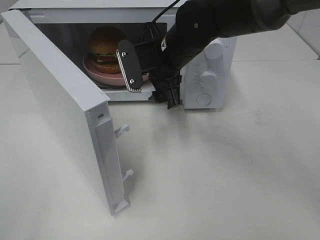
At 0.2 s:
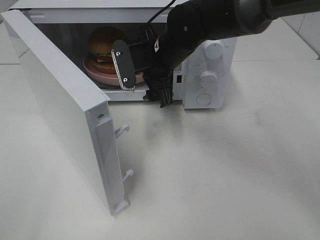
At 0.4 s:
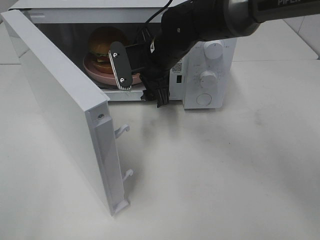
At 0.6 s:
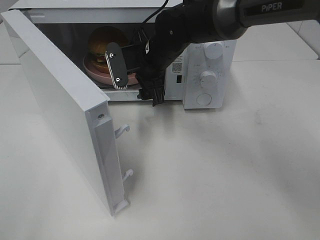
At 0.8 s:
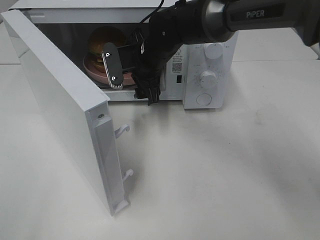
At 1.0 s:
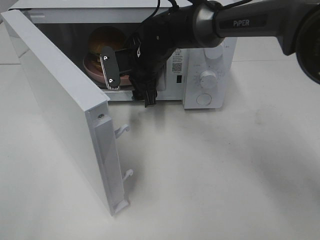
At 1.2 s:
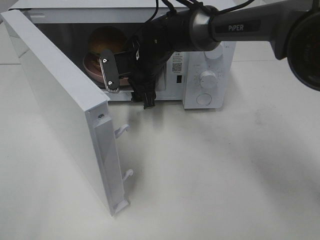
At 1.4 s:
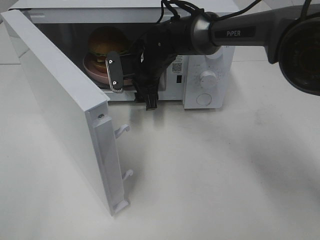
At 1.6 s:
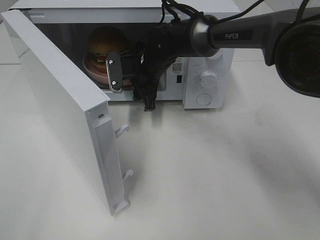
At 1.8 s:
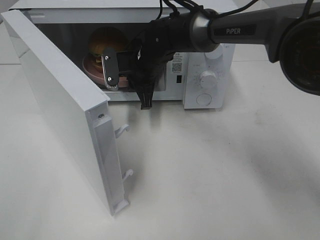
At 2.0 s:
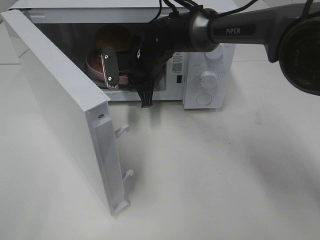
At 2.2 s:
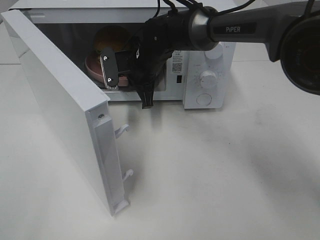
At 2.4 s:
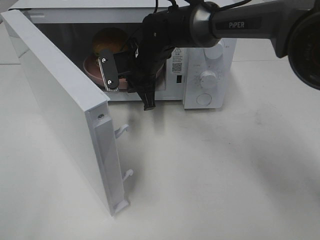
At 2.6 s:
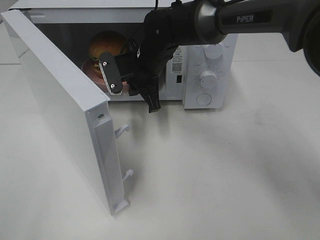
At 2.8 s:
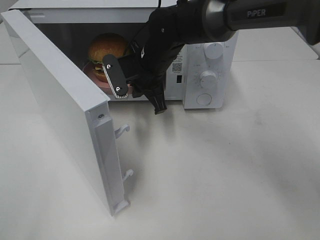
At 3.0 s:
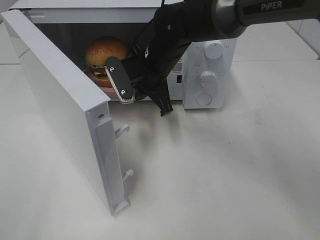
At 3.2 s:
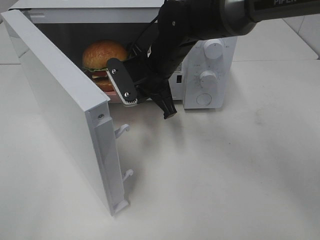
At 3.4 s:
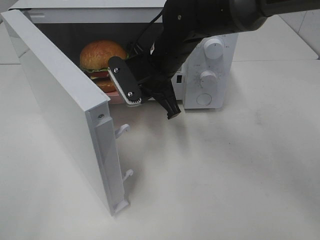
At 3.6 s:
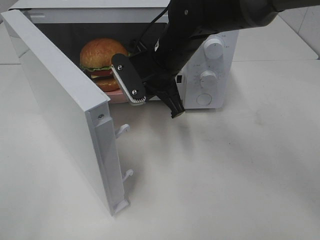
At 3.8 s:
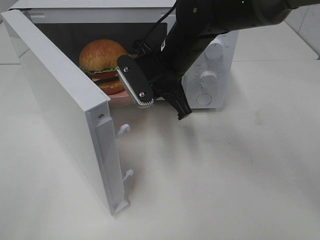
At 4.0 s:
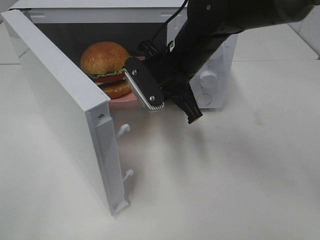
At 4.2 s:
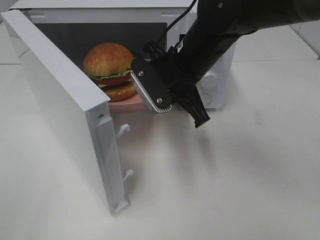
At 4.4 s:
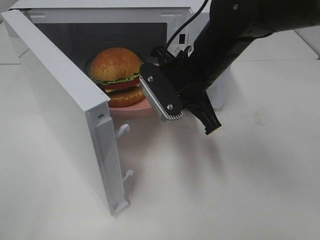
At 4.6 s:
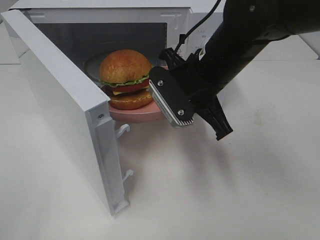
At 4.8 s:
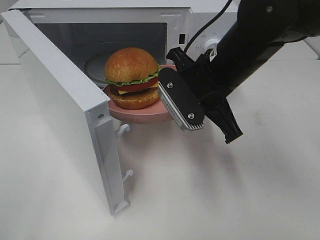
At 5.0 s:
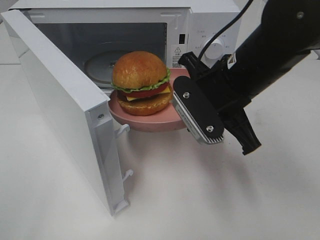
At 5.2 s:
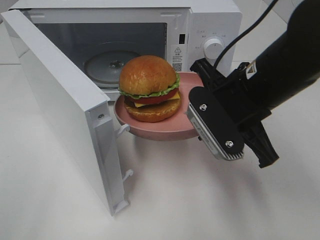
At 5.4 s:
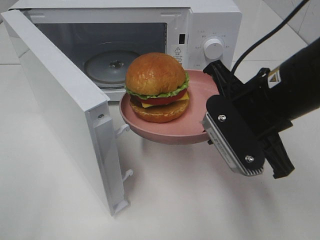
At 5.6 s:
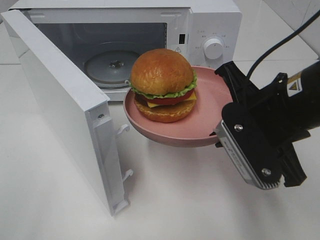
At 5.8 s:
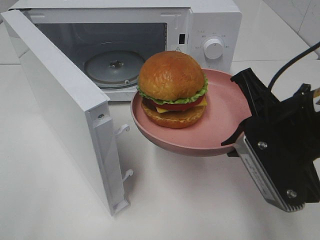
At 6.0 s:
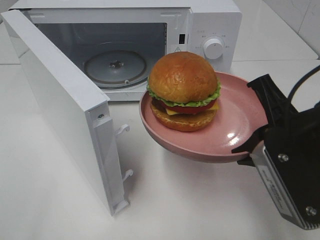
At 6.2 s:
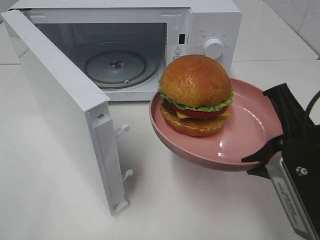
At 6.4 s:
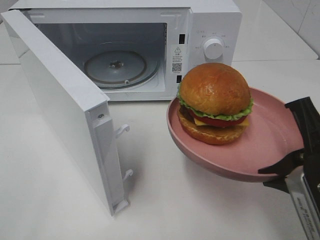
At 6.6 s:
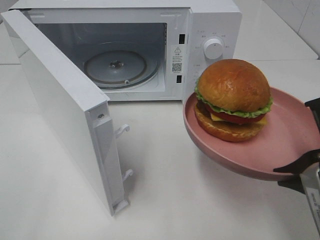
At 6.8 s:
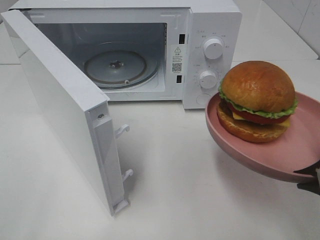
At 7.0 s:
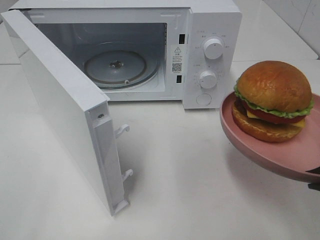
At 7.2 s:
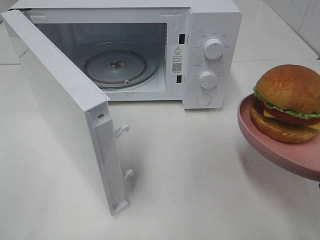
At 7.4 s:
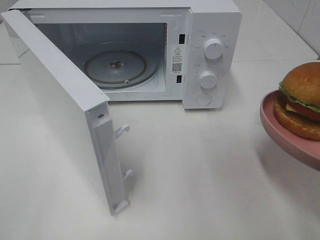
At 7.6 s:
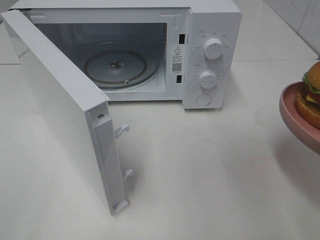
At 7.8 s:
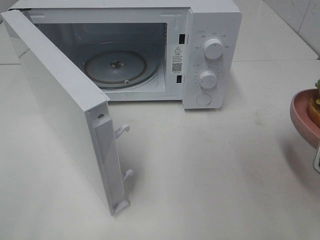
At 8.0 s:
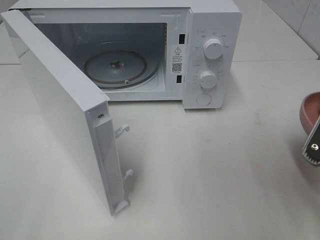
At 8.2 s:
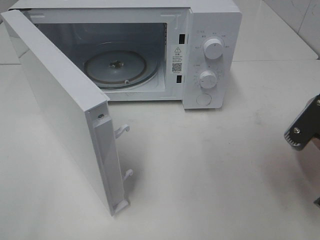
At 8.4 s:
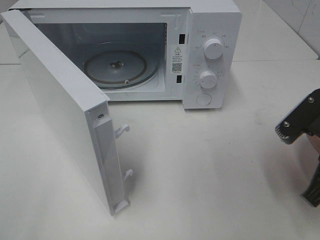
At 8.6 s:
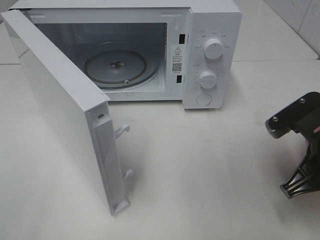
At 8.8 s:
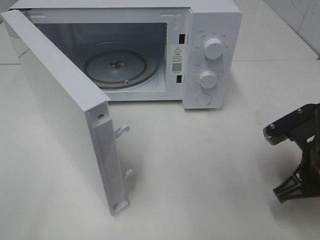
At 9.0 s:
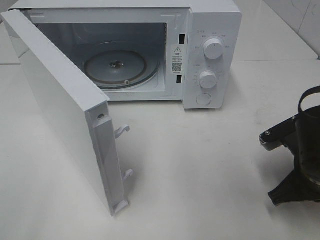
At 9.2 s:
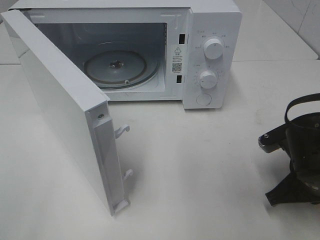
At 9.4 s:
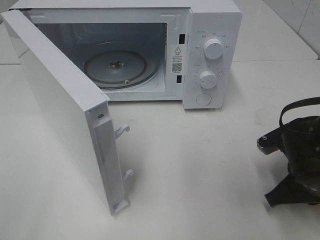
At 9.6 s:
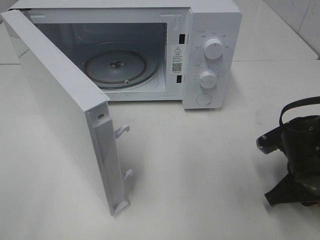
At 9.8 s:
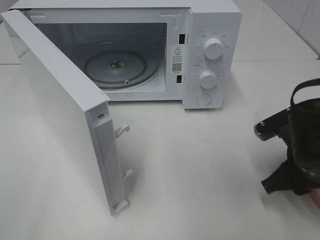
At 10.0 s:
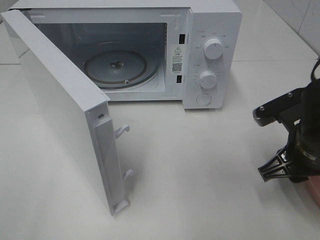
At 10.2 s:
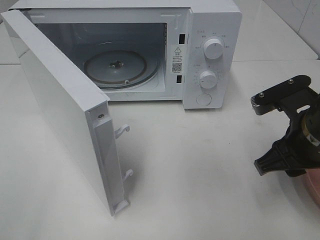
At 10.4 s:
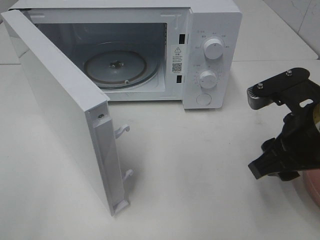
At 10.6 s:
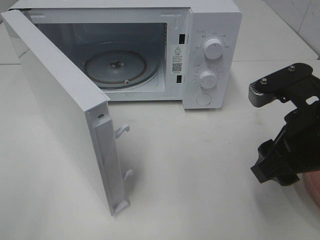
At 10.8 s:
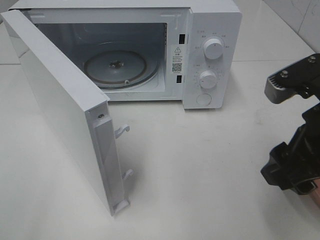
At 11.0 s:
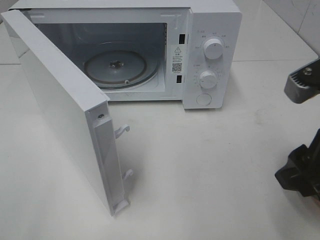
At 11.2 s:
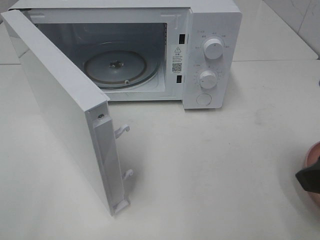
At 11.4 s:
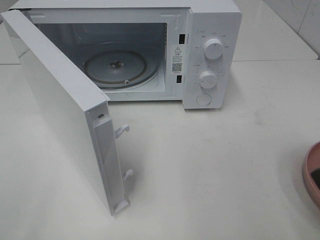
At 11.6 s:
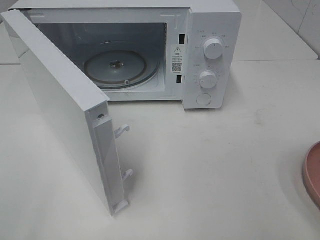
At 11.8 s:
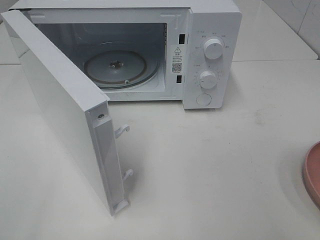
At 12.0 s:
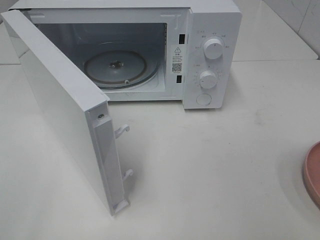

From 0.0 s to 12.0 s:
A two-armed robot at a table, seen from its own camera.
Task of the whole recording: Heat the burger.
Step, from 2.0 s to 9.6 s: Right hand: place the plate on the table.
From 0.0 s to 1.6 s: The right gripper shifts roughly 10 cm forward and downward.
From 1.6 s to 3.0 s: The right gripper is displaced backward by some 5 cm, and closes its fingers.
From 3.0 s to 4.4 s: The right gripper goes approximately 10 cm backward and to the right.
From 4.4 s to 6.0 s: The right gripper heads backward and to the right, covering some 20 cm.
From 6.0 s to 7.6 s: The right gripper goes approximately 5 cm to the right.
From 7.6 s to 9.0 s: The right gripper goes about 15 cm downward and forward.
From 9.0 s to 10.4 s: The right gripper travels upward by approximately 10 cm, and opens up.
From 10.4 s to 12.0 s: The right gripper travels backward, to the right and upward by about 20 cm.

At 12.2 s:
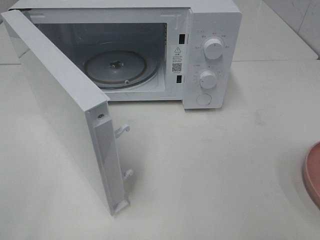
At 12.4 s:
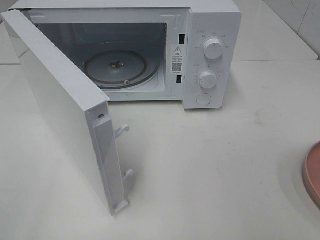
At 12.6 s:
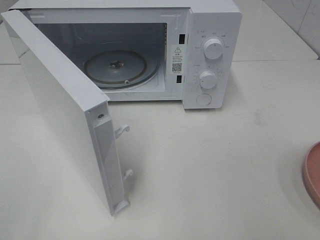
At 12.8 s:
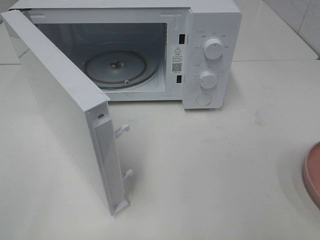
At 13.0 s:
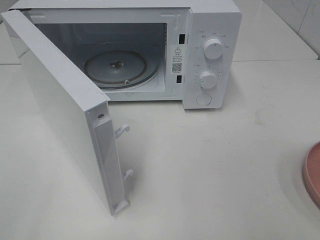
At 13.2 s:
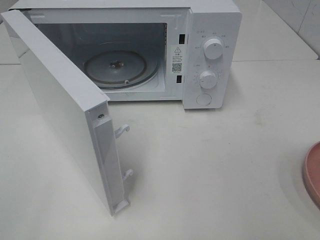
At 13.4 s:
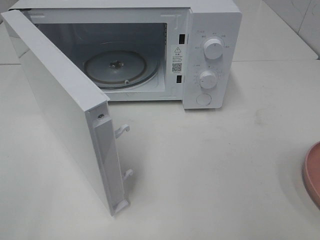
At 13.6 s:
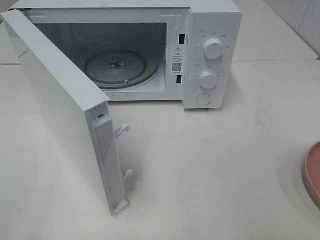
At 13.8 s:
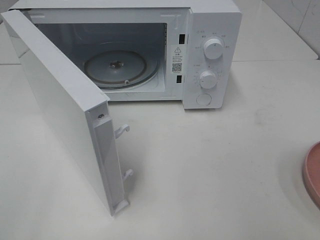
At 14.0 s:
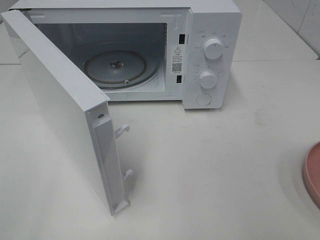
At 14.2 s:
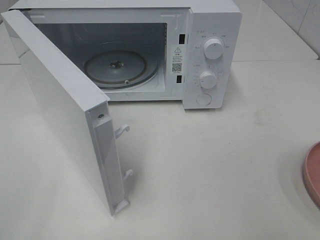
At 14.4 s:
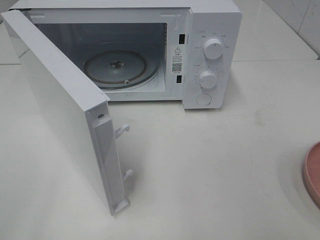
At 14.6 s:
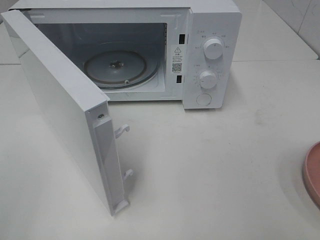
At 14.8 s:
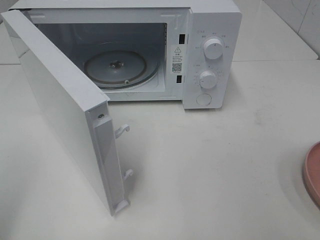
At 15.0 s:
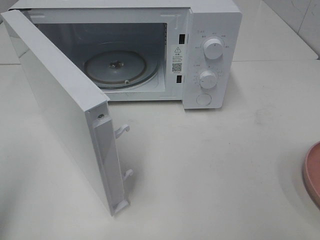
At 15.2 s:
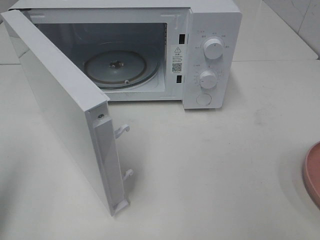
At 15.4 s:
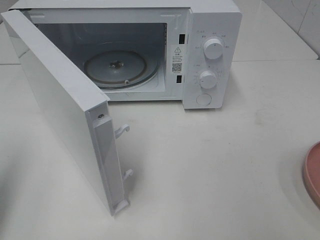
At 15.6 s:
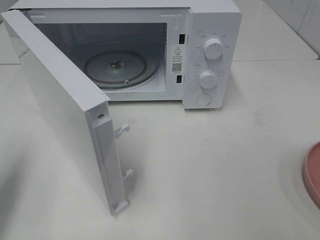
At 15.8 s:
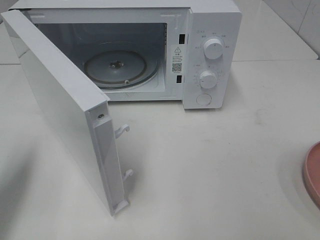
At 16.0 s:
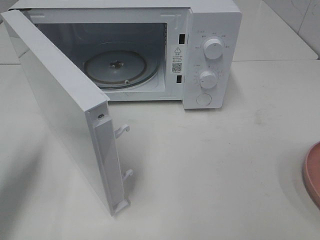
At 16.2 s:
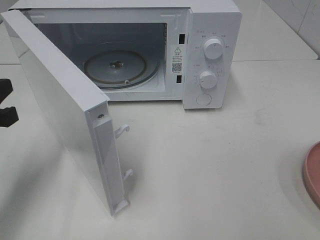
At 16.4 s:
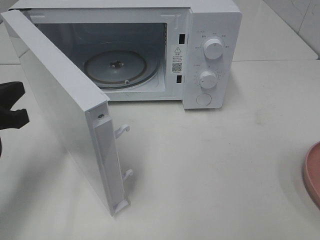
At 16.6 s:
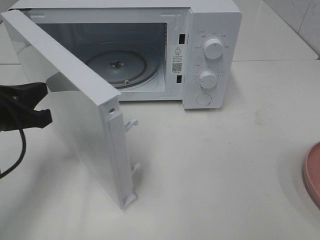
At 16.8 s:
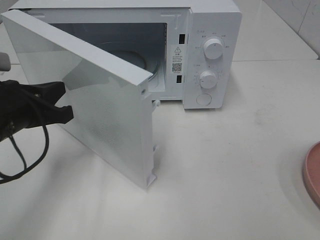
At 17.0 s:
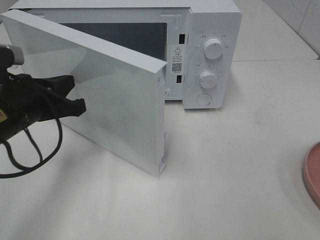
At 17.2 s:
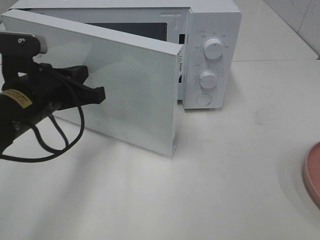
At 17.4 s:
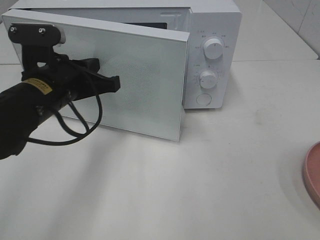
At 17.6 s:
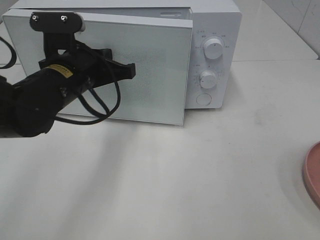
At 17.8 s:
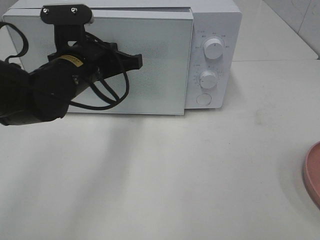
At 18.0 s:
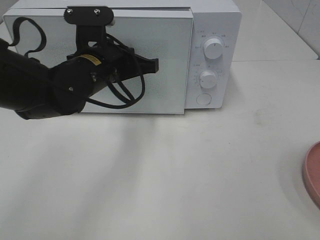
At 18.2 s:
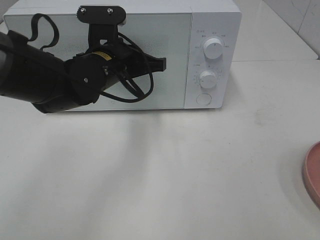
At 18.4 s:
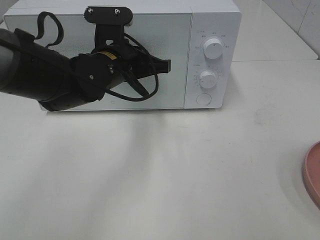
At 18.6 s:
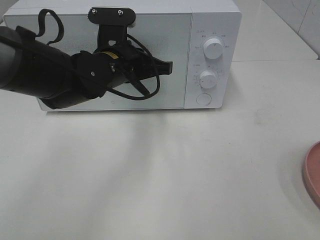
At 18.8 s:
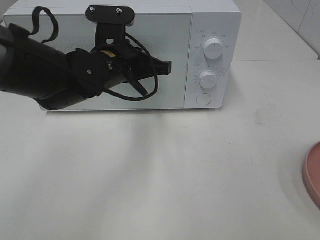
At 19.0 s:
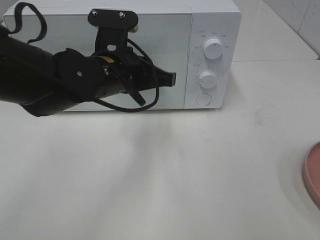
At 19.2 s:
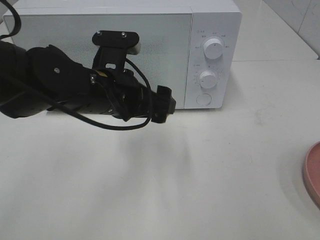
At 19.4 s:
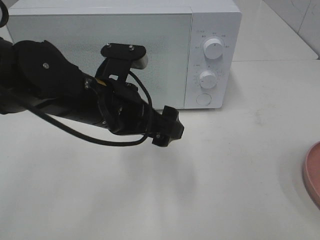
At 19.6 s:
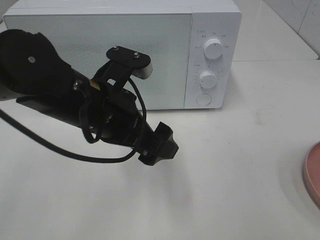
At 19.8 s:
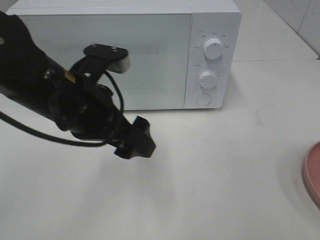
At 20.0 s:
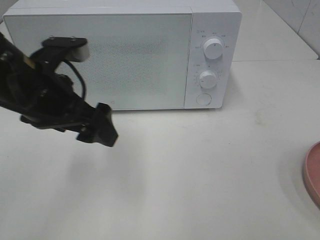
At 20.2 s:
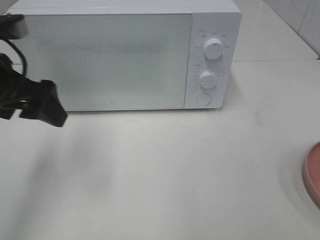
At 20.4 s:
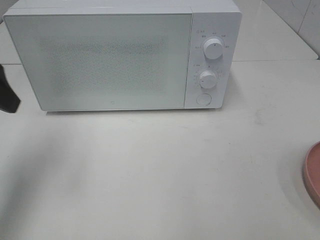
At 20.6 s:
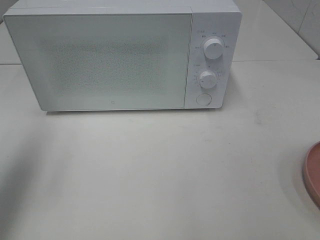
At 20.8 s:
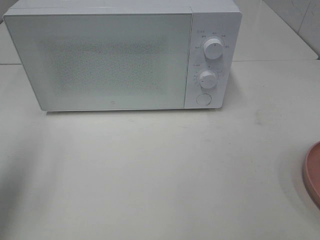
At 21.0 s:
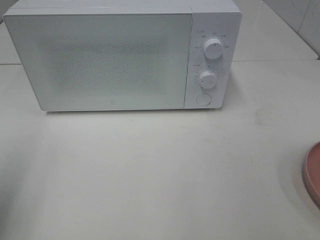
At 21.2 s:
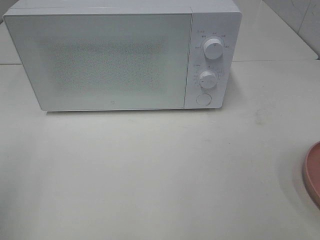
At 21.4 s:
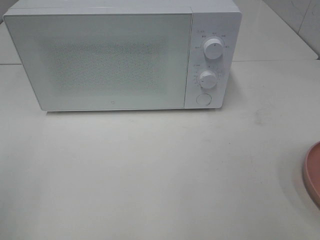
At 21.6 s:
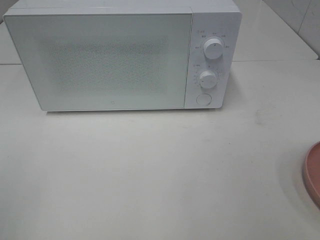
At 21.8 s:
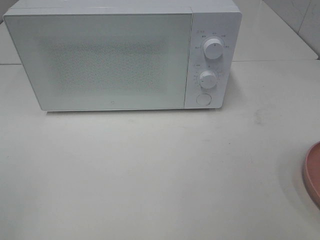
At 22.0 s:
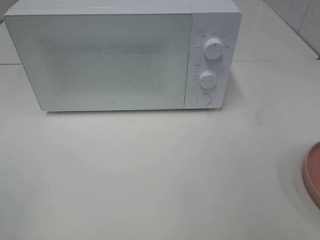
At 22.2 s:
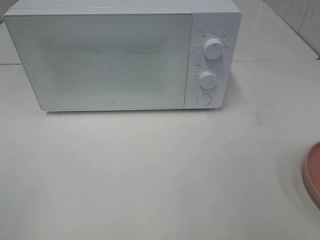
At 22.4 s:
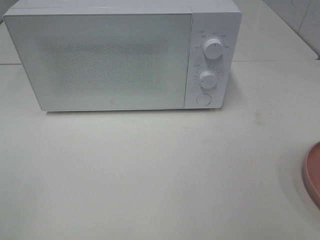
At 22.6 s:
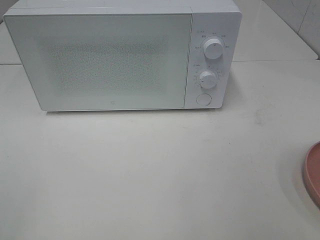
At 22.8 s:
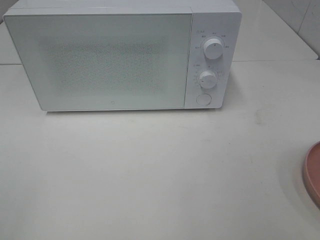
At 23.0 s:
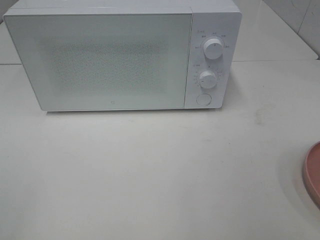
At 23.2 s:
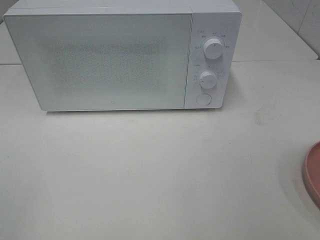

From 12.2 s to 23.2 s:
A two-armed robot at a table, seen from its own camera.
Task of the whole recording: Heat the burger.
Step, from 12.2 s to 18.8 s: Left hand: close the microwave door.
From 13.8 s to 15.4 s: The left gripper shifts approximately 15 cm forward, and closes its fingers.
From 15.4 s to 17.0 s: The left gripper moves to the right, forward and downward, approximately 20 cm.
From 17.0 s to 18.4 s: The left gripper goes about 15 cm to the right and forward.
From 18.4 s to 20.0 s: The left gripper goes roughly 15 cm backward and to the left, and opens up.
From 20.0 s to 21.6 s: The left gripper shifts approximately 25 cm backward and to the left.
